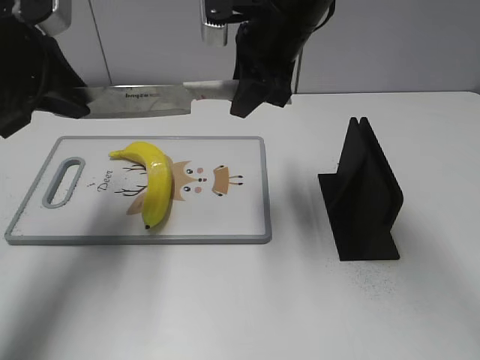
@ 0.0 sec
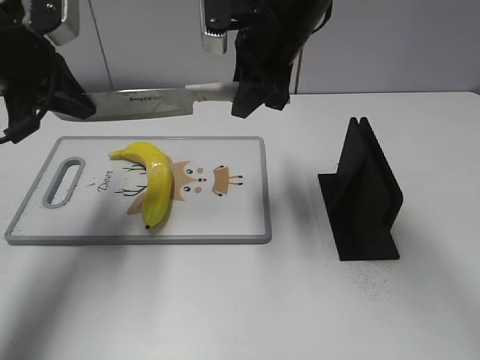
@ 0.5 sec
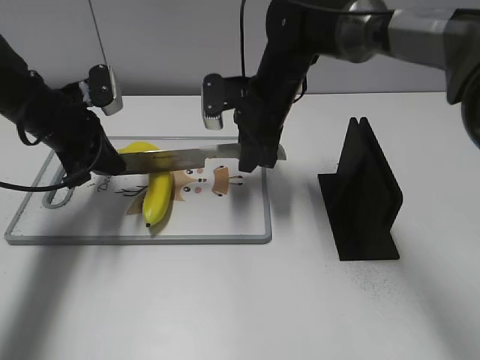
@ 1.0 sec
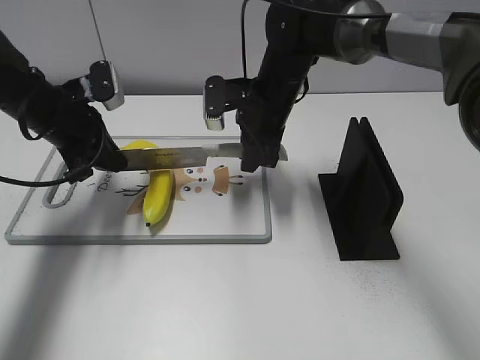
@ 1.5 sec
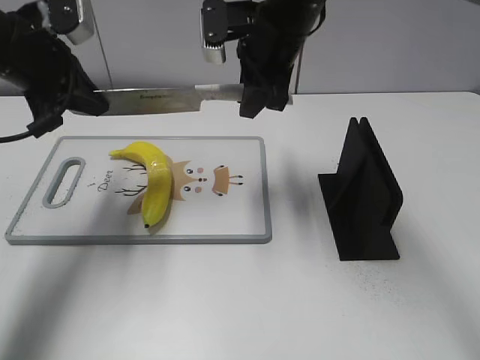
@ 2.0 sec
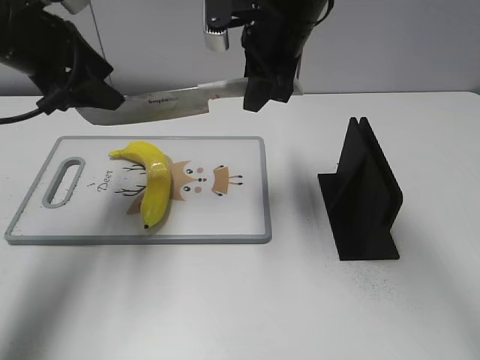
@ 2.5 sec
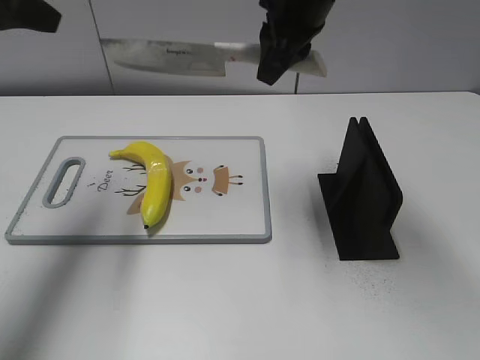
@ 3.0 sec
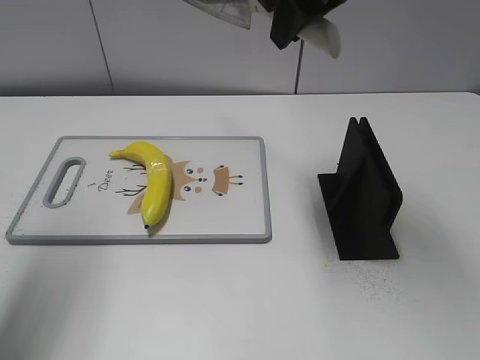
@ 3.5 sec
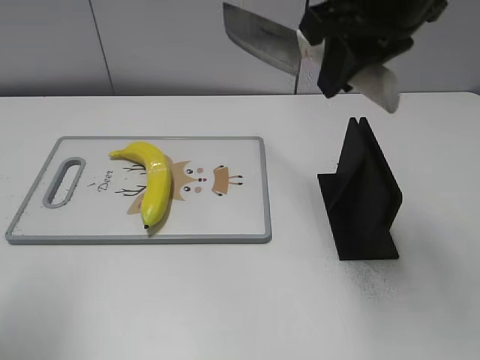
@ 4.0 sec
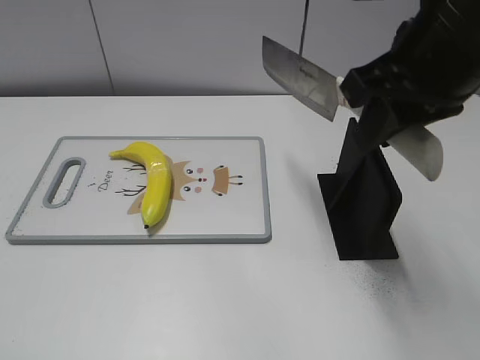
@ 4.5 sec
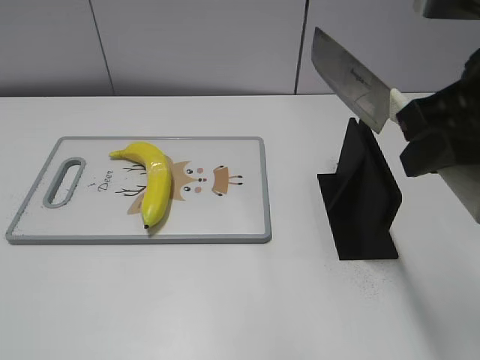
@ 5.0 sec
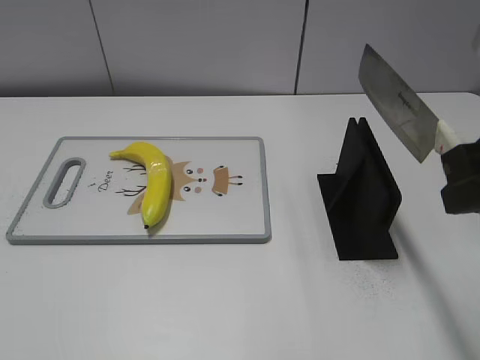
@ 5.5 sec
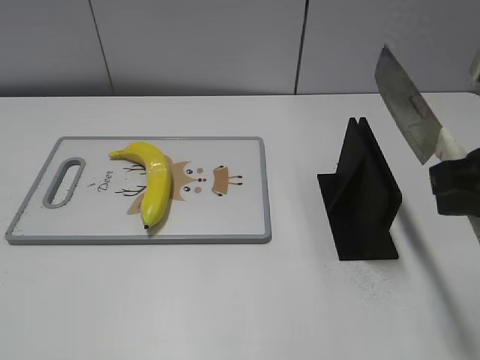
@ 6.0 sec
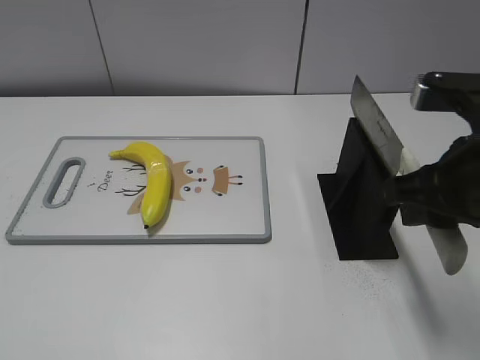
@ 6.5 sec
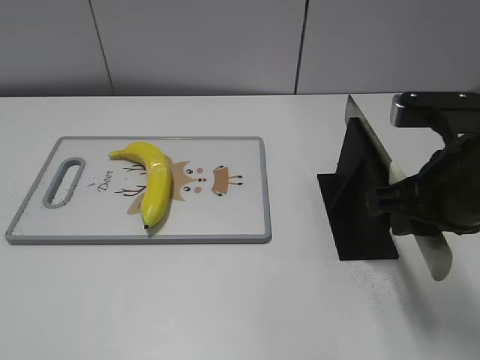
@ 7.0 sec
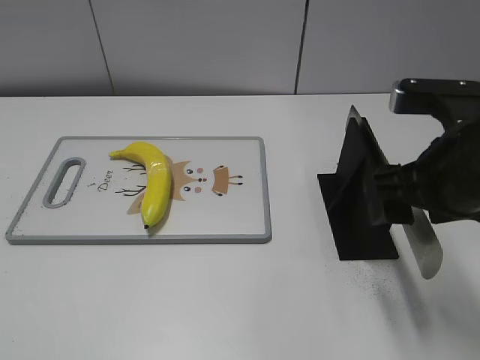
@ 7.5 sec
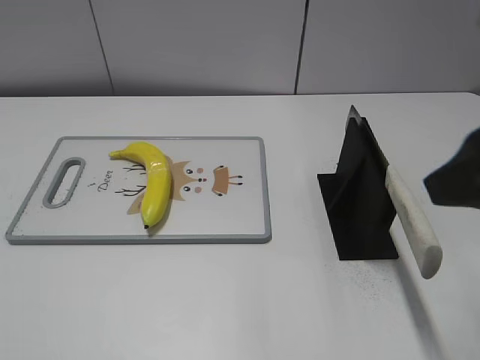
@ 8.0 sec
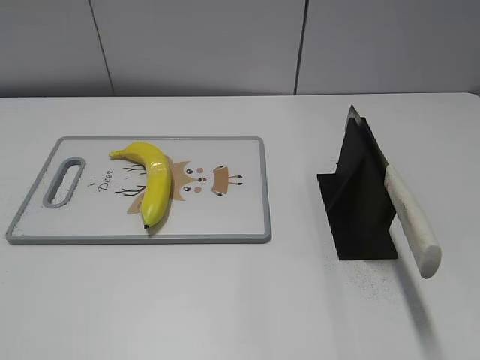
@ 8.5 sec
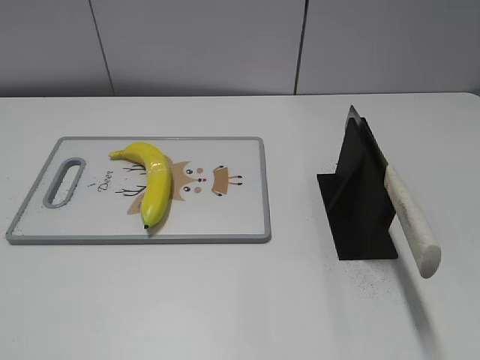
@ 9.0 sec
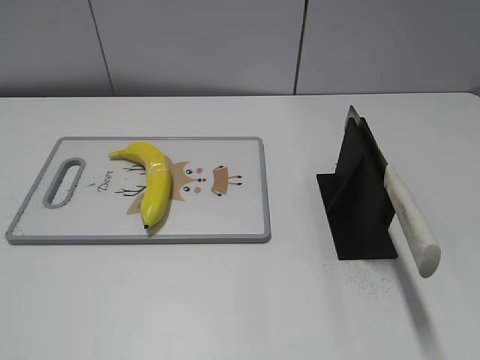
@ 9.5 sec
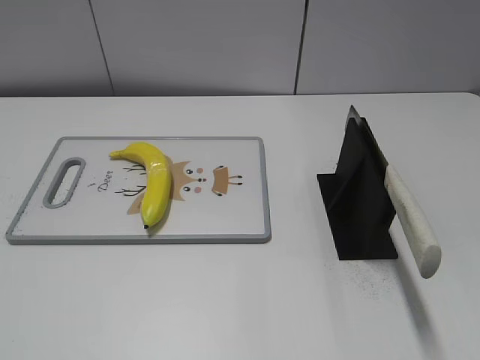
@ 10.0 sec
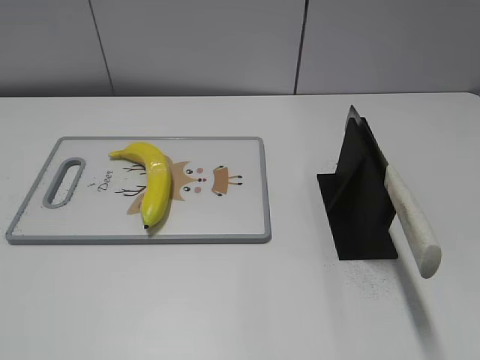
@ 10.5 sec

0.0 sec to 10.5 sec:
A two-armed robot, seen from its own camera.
Task of the whole recording: cut plastic banana.
Step, 0.0 sec to 2.0 sec: Lift the knife with your right hand.
Step, 2.5 sec to 3.5 sec: Cut the banana with your right hand.
Step, 4.0 sec to 4.5 sec: Secure the blade with your left hand.
Step, 5.0 sec to 10.5 sec: Place the knife on the storage rack with your right hand.
0.0 sec to 2.0 sec: The left gripper moves roughly 15 cm downward and comes back, and closes; the right gripper moves some 10 cm downward and comes back.
2.0 sec to 4.0 sec: The right gripper is displaced backward, upward and to the right by approximately 15 cm. The left gripper goes about 20 cm backward and upward, and opens.
4.0 sec to 6.5 sec: The left gripper shifts about 20 cm backward and downward. Meanwhile the right gripper goes about 15 cm downward, backward and to the right.
6.5 sec to 8.5 sec: The right gripper is displaced backward and to the right by approximately 15 cm, and opens.
